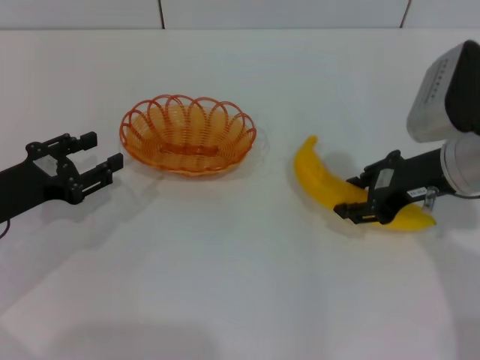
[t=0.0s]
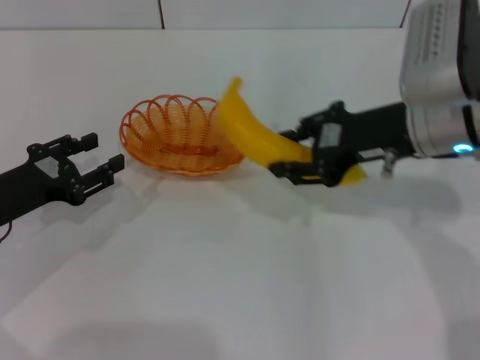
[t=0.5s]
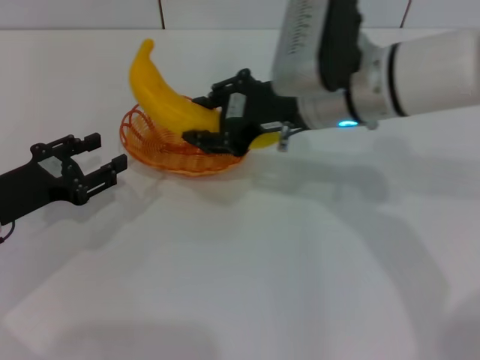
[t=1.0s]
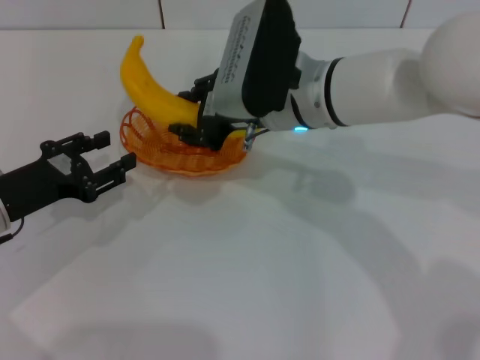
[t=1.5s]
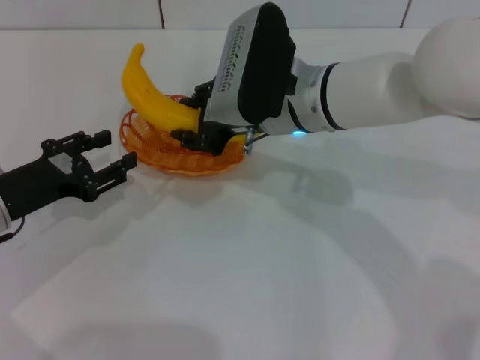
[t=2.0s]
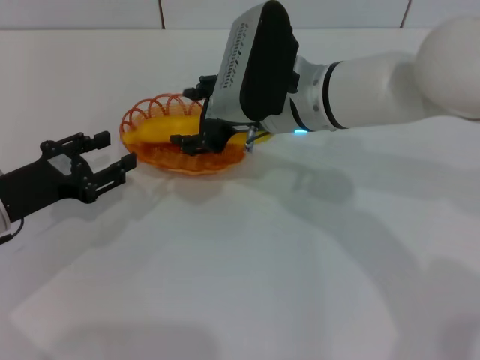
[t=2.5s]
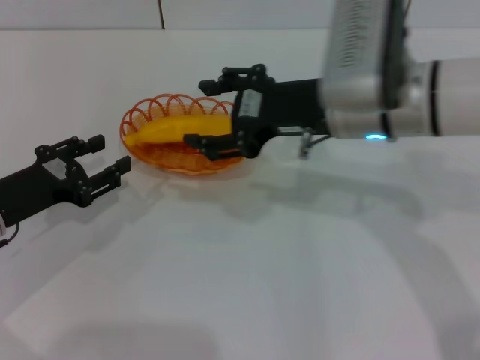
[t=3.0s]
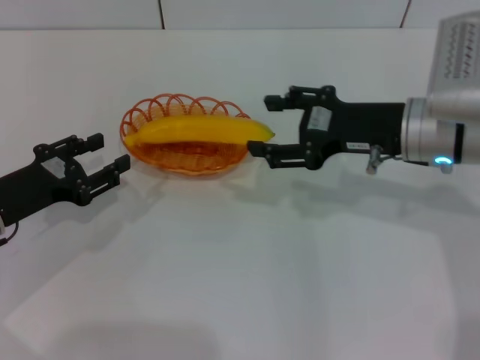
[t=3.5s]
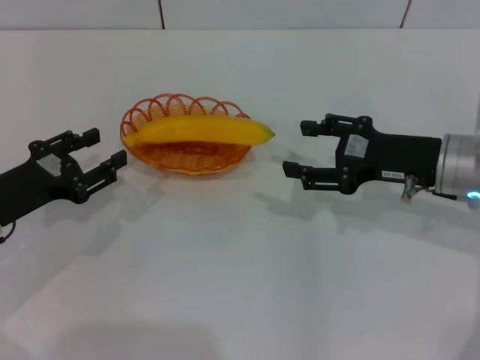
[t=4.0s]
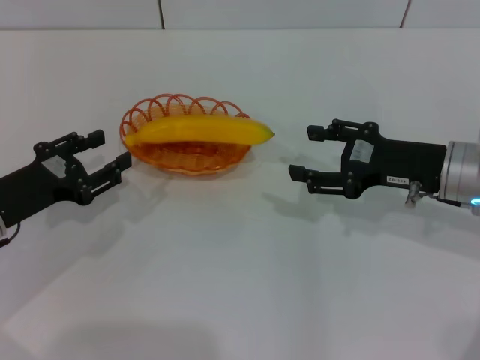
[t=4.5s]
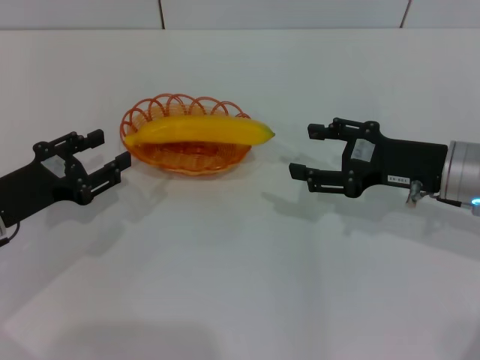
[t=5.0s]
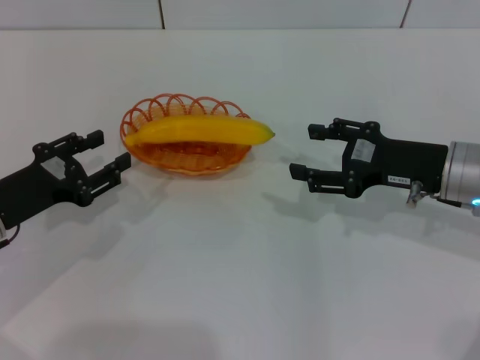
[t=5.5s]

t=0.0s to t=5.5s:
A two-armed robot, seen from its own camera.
Step, t=0.5s to t=2.5s: Place the banana into the basket with the right gripper.
t=0.0s to t=2.0s: The right gripper goes approximately 15 cm to the left.
t=2.0s to t=3.5s: The right gripper heads to the right, covering some 15 cm, and opens up.
t=3.5s to t=5.5s: The right gripper moves about 5 cm.

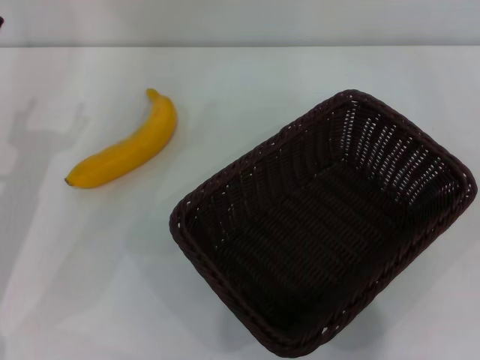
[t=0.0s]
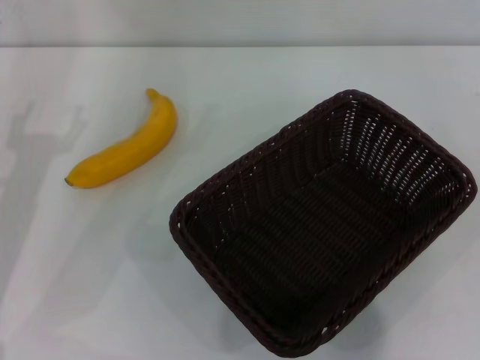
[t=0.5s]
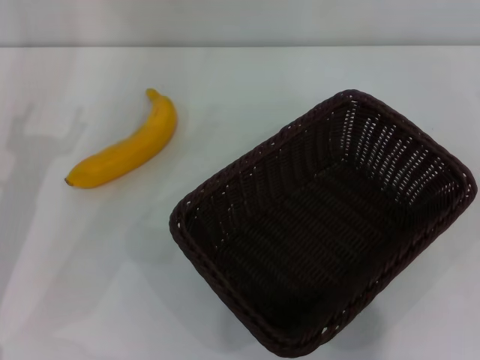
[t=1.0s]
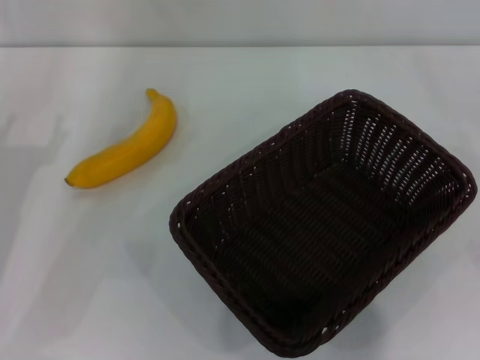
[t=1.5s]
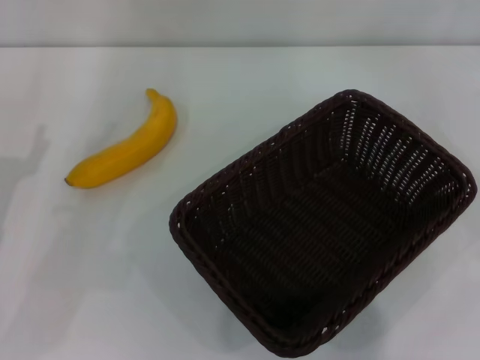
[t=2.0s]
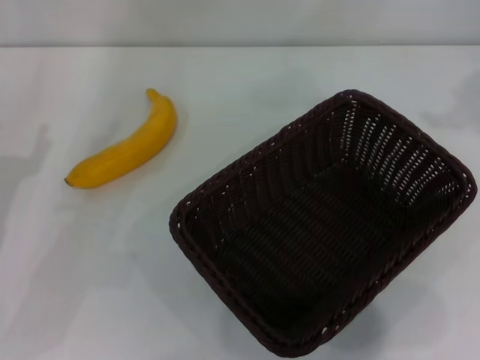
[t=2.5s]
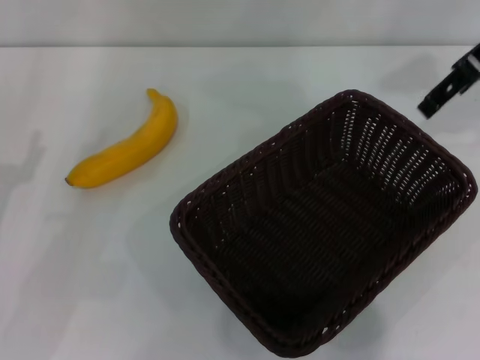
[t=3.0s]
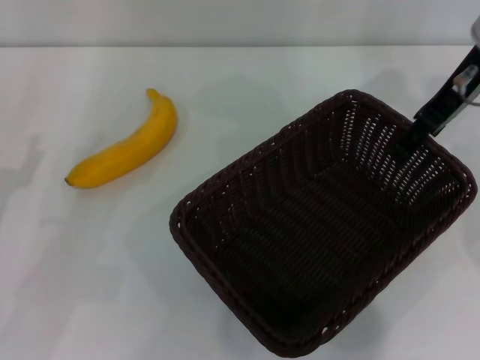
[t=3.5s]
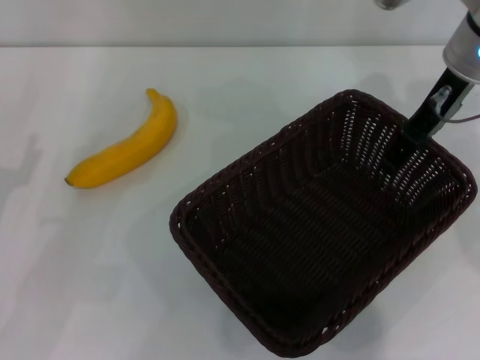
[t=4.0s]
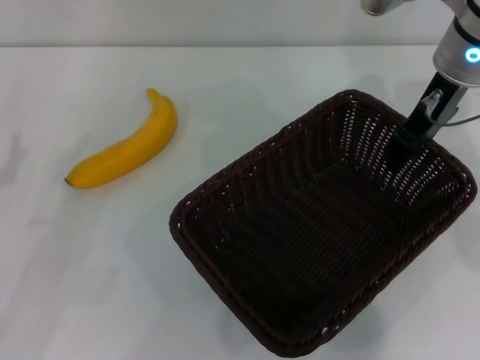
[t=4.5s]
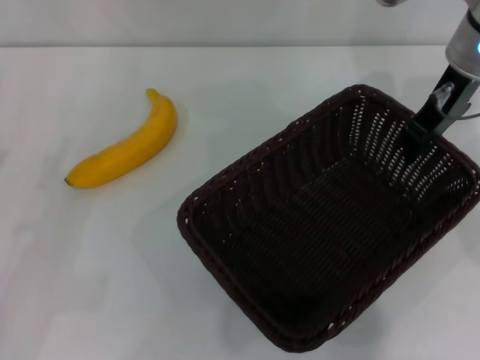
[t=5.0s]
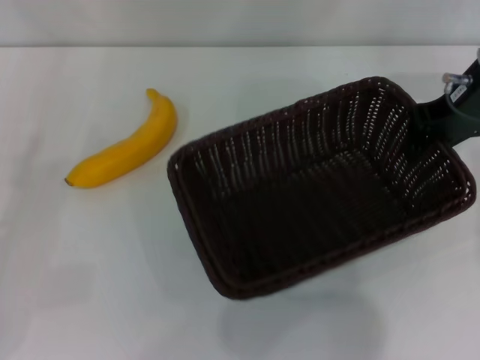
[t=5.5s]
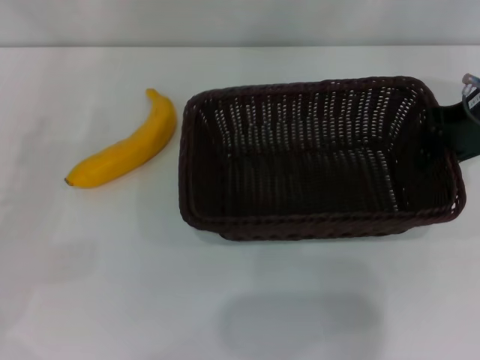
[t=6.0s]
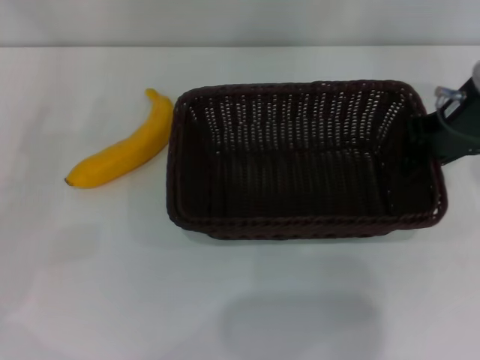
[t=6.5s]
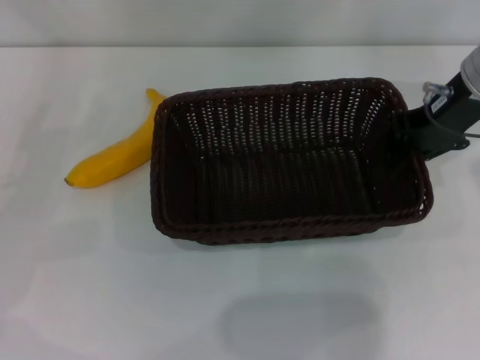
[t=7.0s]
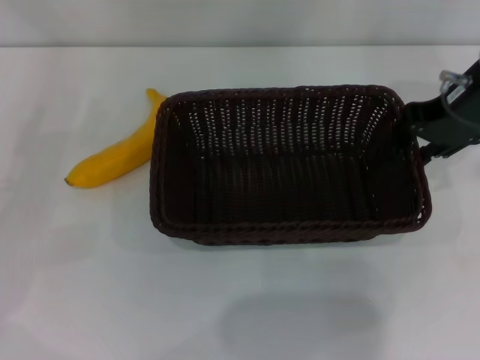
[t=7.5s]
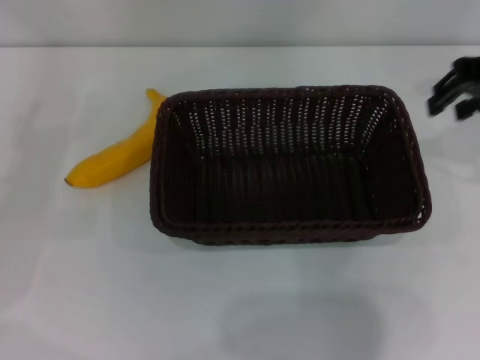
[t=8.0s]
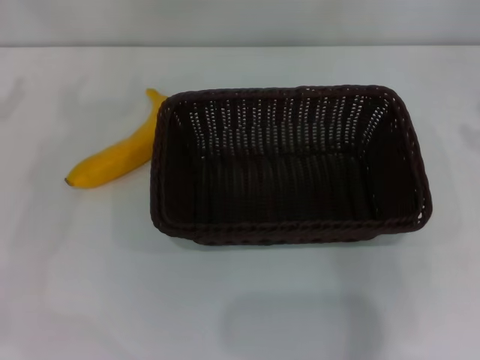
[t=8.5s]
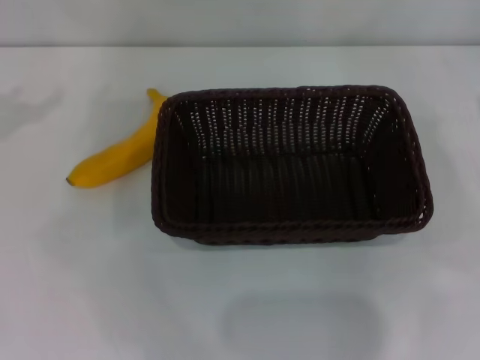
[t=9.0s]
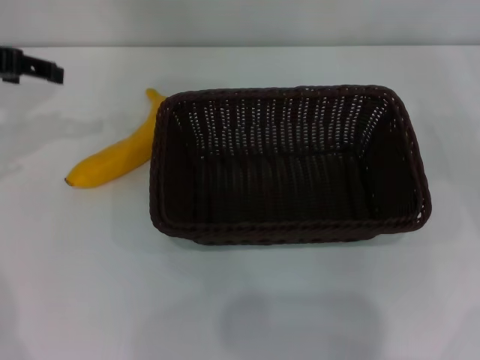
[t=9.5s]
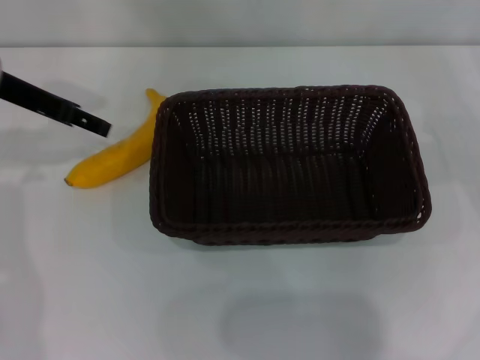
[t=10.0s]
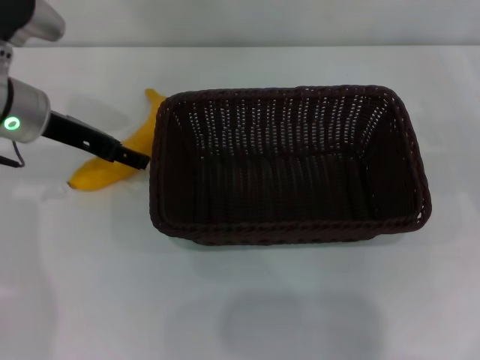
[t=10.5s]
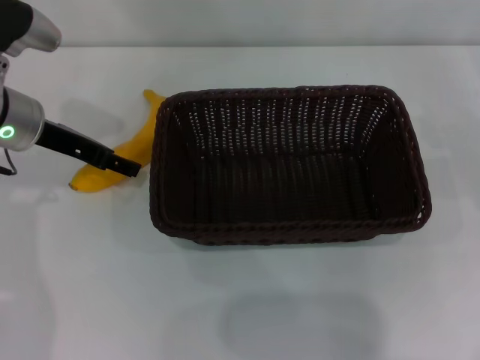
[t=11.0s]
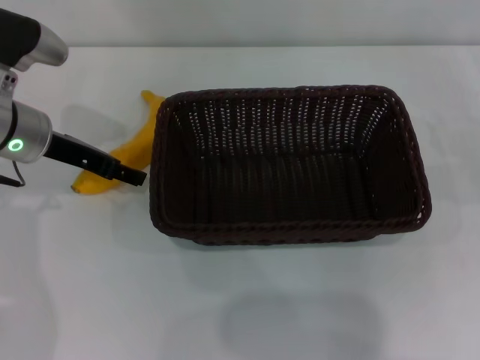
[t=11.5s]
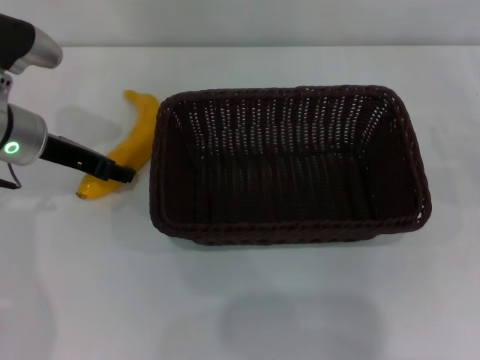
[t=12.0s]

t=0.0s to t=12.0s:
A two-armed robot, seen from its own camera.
Step, t=0.0s to t=5.5s: Pick up the dark basket with the right gripper.
Step, t=6.0s to t=7.5s: Place the dark basket in the center of view with the right gripper.
t=2.0s to t=4.0s: The right gripper goes roughly 25 cm to the left and forward.
t=4.0s to t=6.0s: The right gripper travels to the right by some 5 cm, and closes, while the left gripper heads to the left, covering approximately 10 cm.
t=6.0s to t=8.0s: The right gripper shifts roughly 5 cm upward.
t=8.0s to t=10.0s: The right gripper is displaced to the right and downward by about 20 cm, while the left gripper heads to the right, forward and upward, covering some 20 cm.
t=10.0s to t=12.0s: The left gripper goes some 5 cm downward, and closes up.

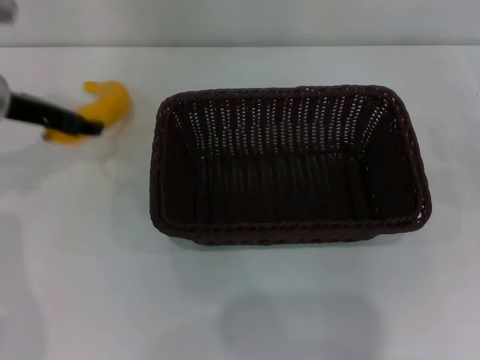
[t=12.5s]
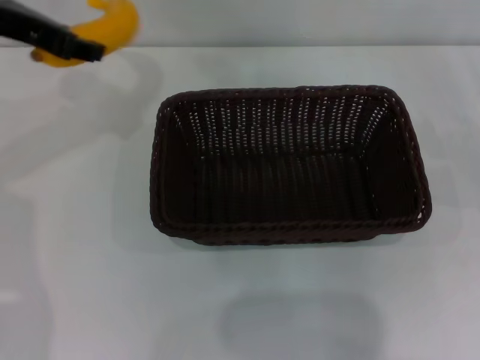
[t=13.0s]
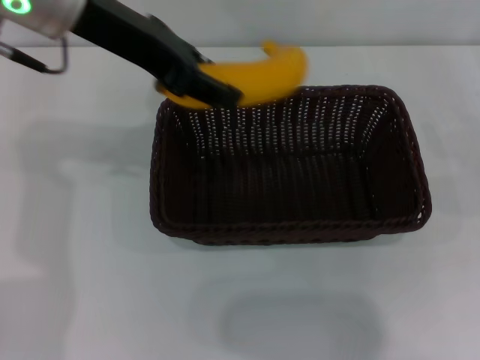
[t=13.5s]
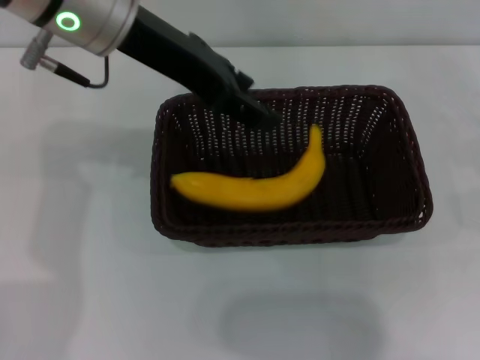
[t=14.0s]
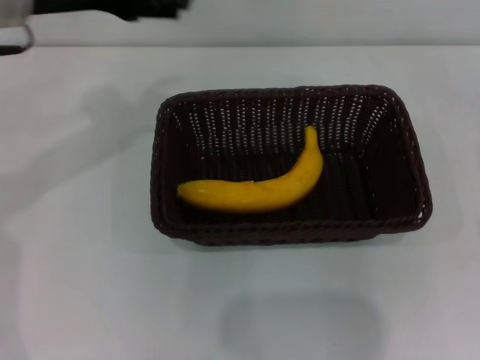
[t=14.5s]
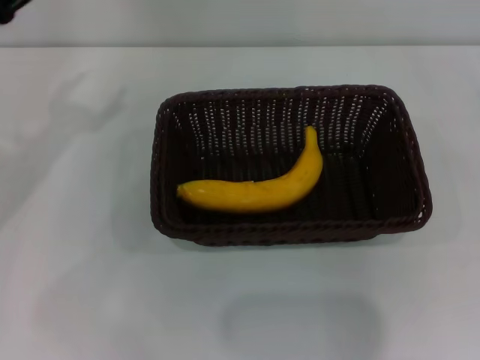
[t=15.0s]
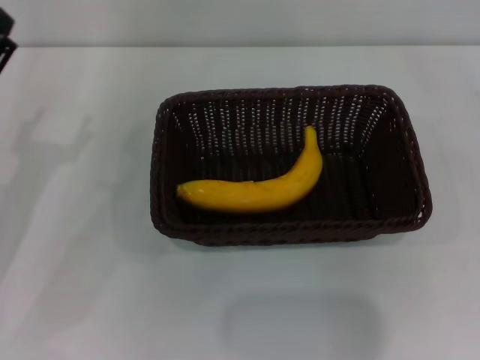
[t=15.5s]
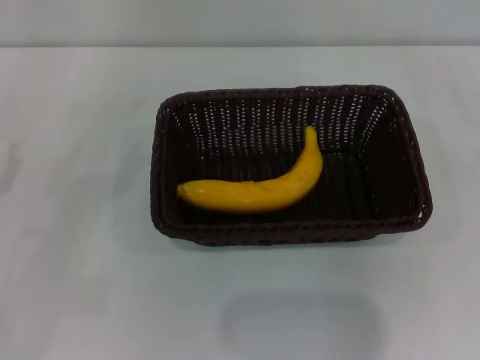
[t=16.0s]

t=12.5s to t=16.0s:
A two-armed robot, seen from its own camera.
Step, t=13.0s to t=14.0s: Place the banana into the dark basket with the left gripper.
t=12.5s to t=14.5s: The right gripper shifts about 10 cm backward and to the right. Meanwhile the left gripper travels upward and to the right by about 10 cm, and opens.
t=14.5s to t=16.0s: The left gripper goes some 25 cm downward, backward and to the left.
